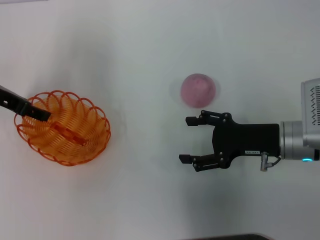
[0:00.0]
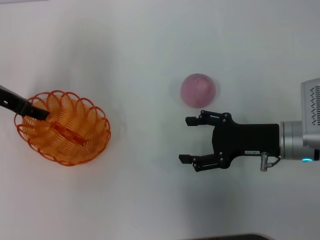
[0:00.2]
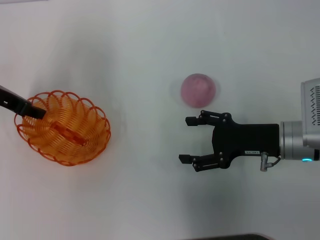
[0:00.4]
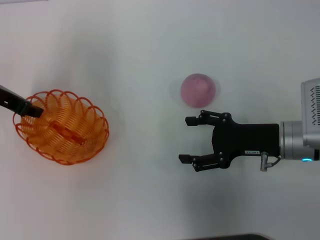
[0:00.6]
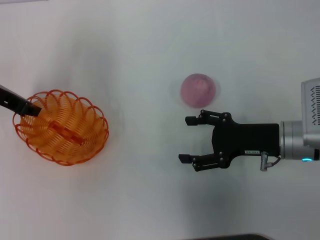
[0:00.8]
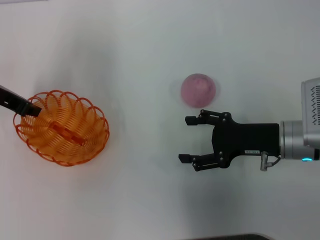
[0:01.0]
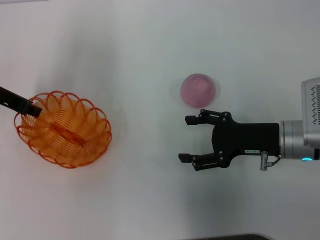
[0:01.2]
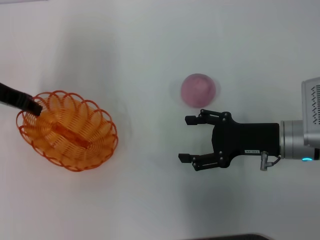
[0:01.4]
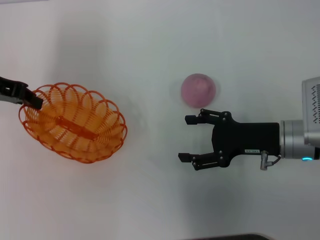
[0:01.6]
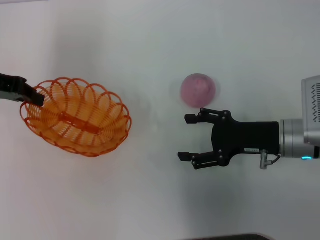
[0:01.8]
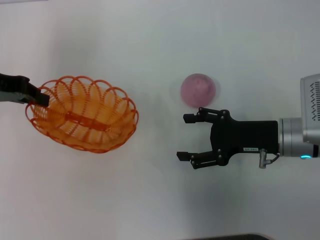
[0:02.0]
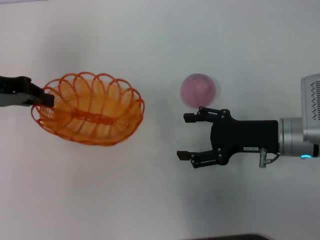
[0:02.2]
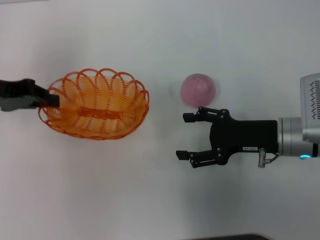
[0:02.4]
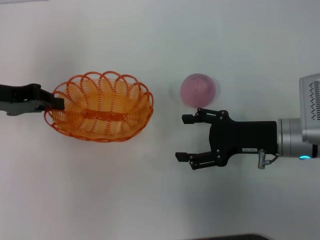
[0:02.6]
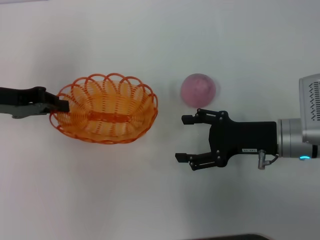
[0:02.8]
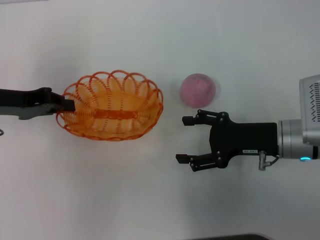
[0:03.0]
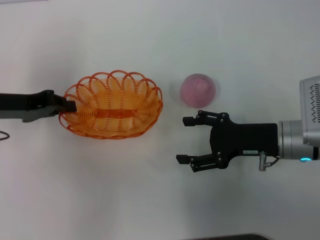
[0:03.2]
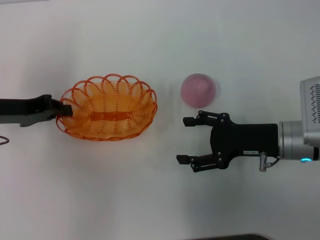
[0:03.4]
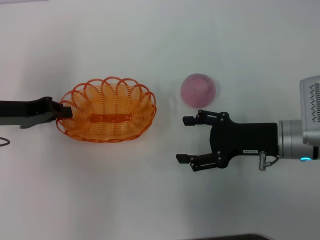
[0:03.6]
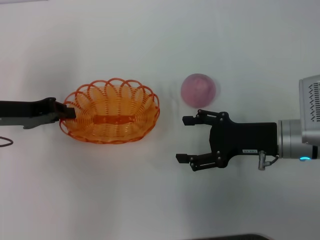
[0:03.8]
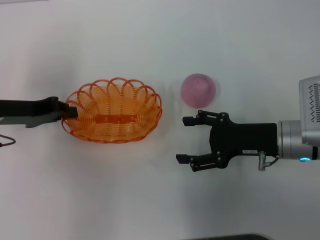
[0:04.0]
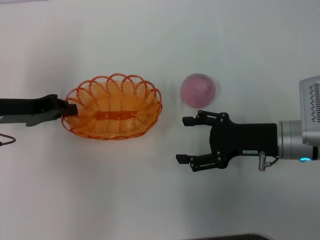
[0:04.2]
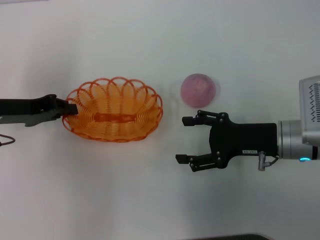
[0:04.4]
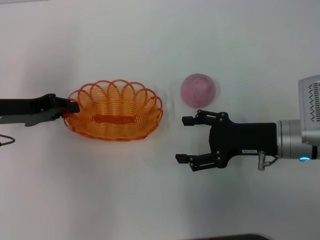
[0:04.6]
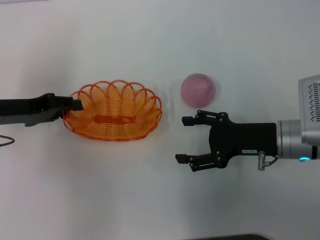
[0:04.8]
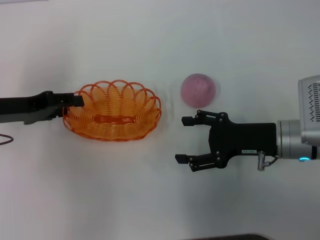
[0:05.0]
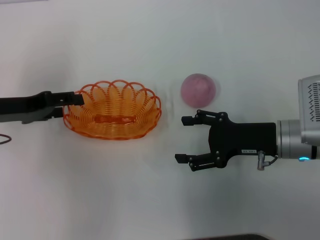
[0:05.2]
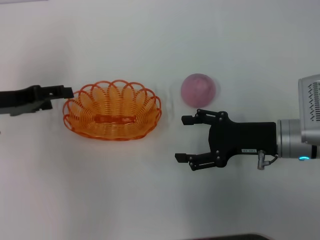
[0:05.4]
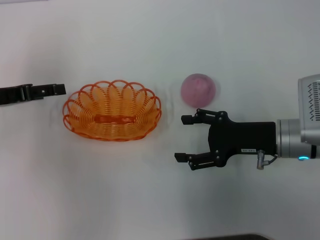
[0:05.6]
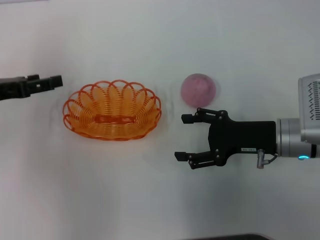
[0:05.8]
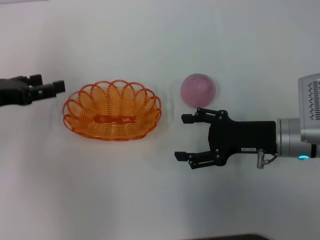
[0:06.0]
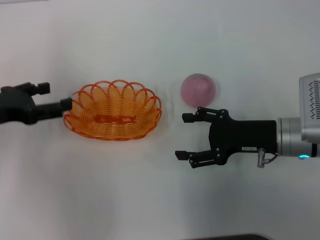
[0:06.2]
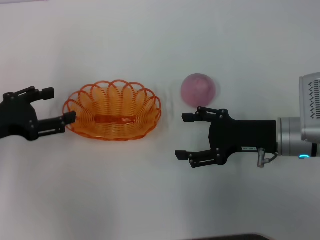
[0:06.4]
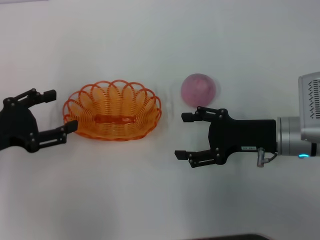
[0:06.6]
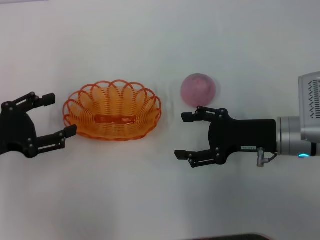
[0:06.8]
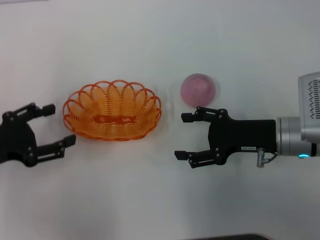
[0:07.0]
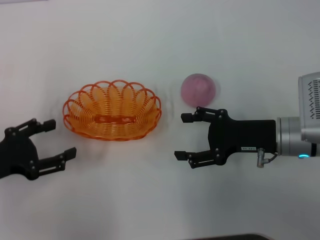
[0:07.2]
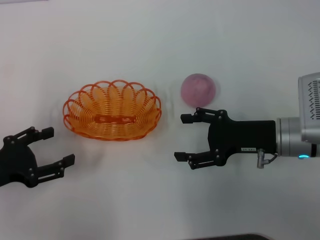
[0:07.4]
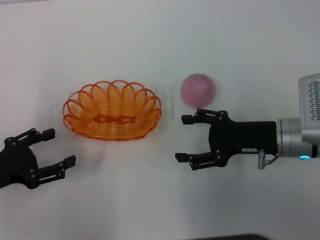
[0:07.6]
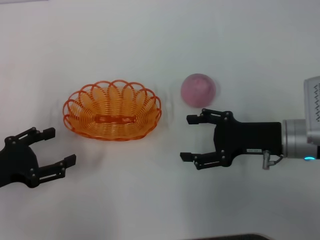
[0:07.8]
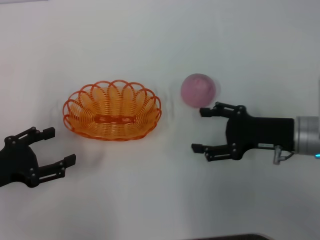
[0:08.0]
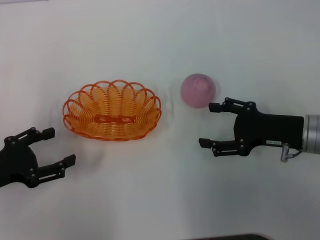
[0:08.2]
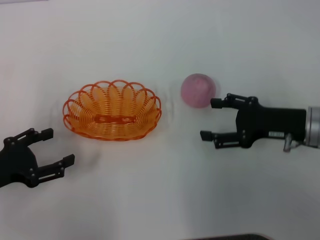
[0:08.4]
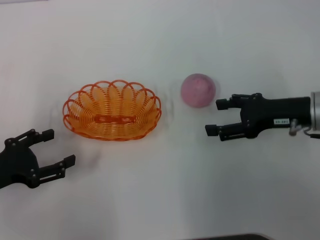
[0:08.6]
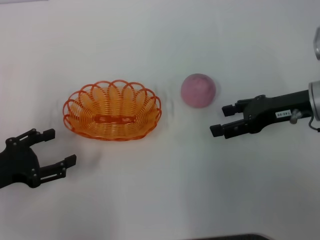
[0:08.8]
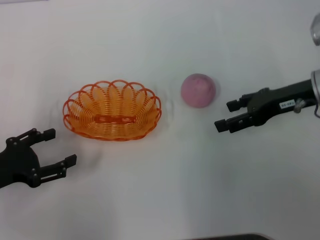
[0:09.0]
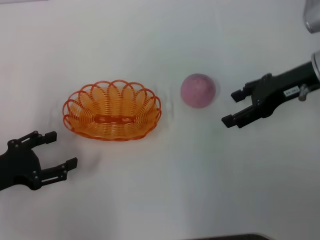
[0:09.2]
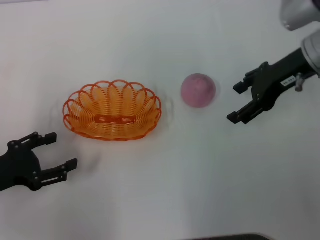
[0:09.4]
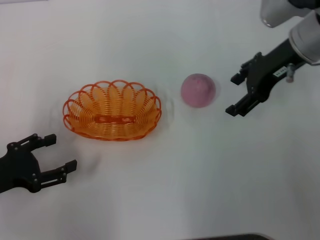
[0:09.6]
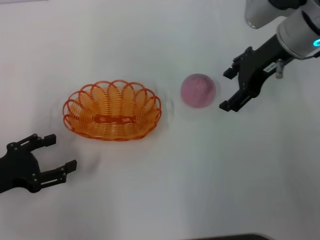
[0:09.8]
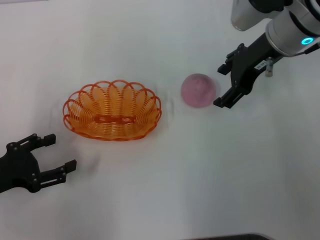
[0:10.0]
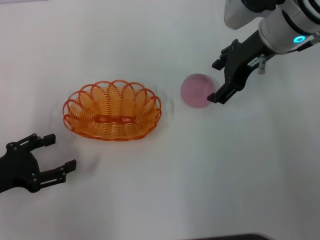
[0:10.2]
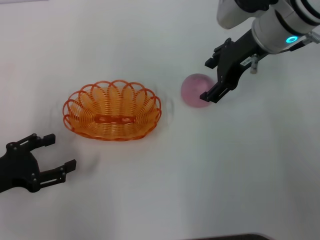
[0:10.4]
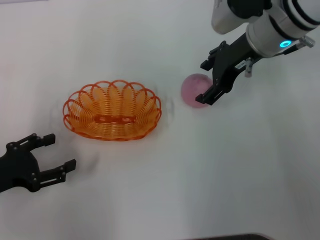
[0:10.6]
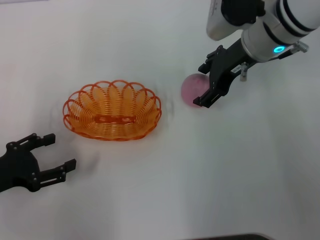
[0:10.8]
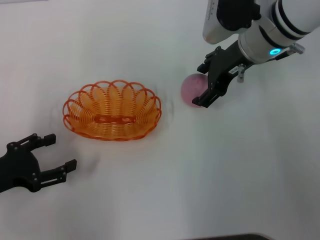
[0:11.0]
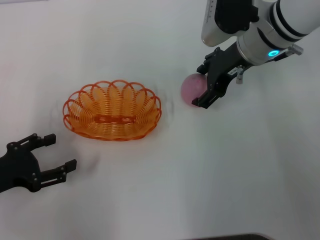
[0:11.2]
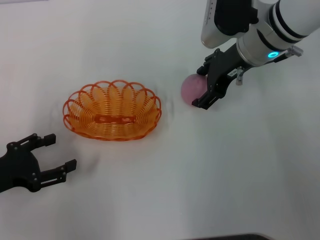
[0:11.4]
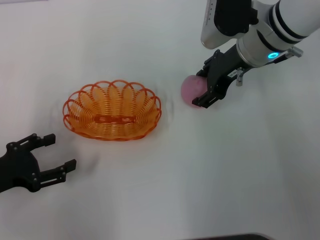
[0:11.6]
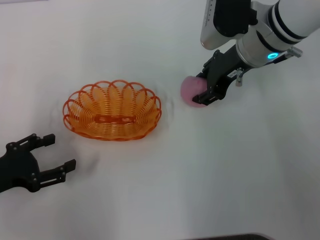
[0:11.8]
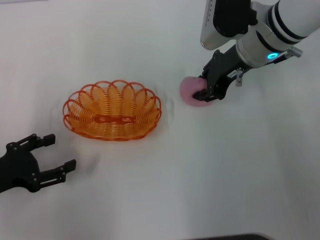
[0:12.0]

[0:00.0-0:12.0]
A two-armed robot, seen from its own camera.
Step, 2.2 to 5.6 s: Place the basket in the center of view with the left gripper.
0.0 to 1.6 s: The left gripper closes its fingers.
1.6 to 3.0 s: The left gripper moves roughly 5 cm.
3.0 to 4.4 s: There are only small adjustments of the grippers.
4.4 to 6.0 s: The left gripper opens up.
6.0 to 7.6 s: The left gripper shifts about 10 cm backward and downward.
7.6 to 9.0 s: The right gripper shifts roughly 10 cm upward and forward.
9.0 to 10.4 s: The right gripper goes about 15 cm to the left, forward and upward.
10.4 to 12.0 s: The right gripper closes its fingers.

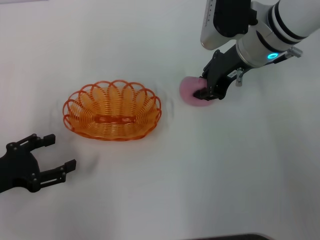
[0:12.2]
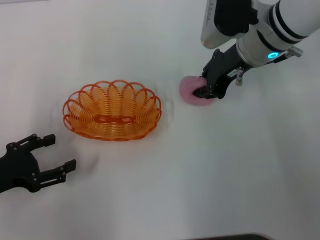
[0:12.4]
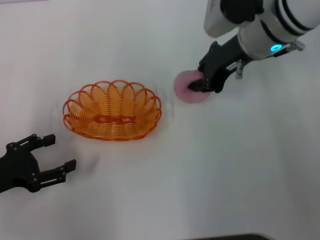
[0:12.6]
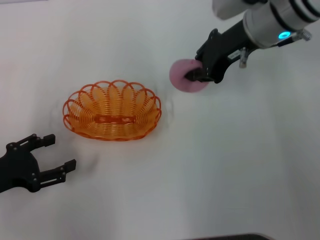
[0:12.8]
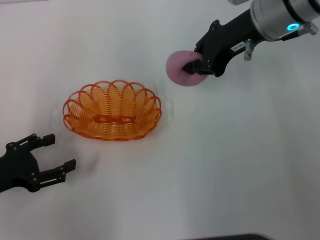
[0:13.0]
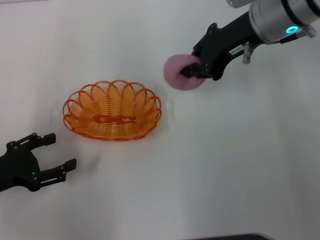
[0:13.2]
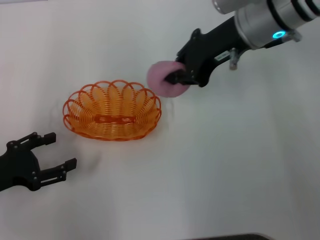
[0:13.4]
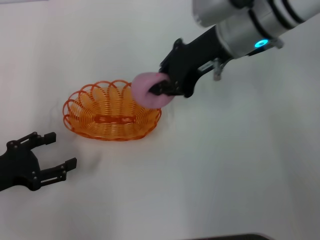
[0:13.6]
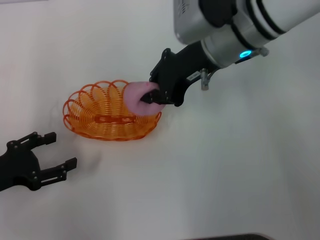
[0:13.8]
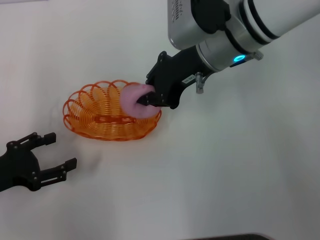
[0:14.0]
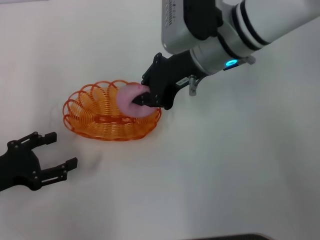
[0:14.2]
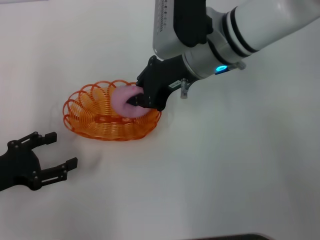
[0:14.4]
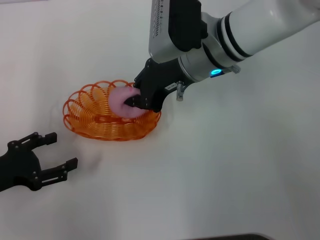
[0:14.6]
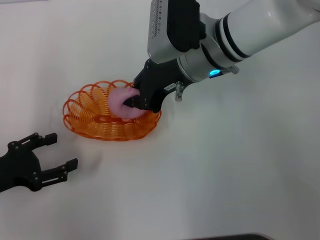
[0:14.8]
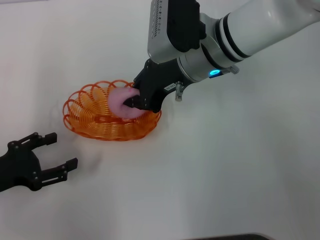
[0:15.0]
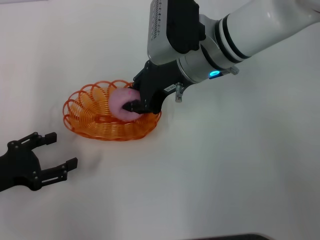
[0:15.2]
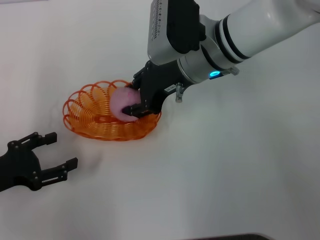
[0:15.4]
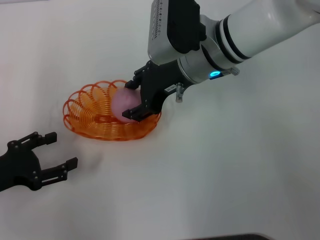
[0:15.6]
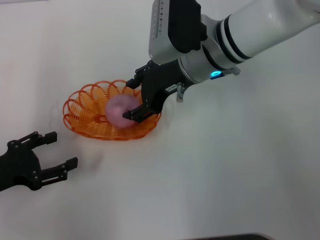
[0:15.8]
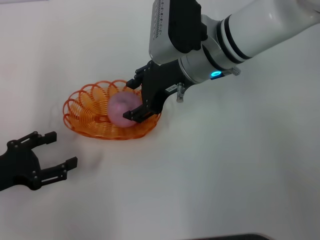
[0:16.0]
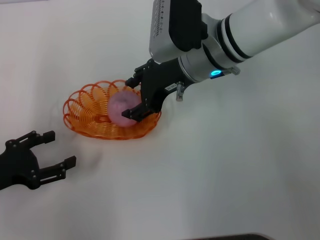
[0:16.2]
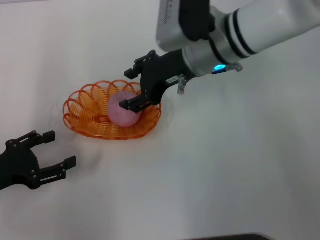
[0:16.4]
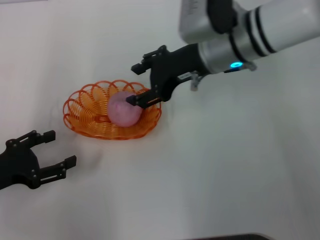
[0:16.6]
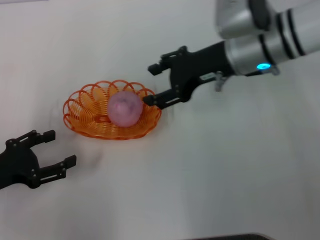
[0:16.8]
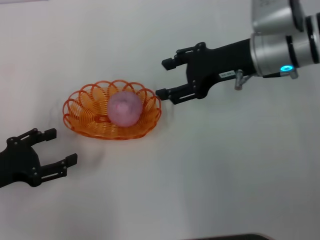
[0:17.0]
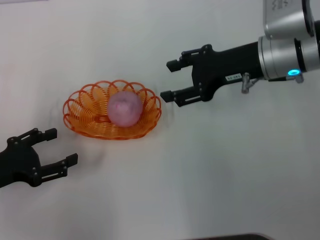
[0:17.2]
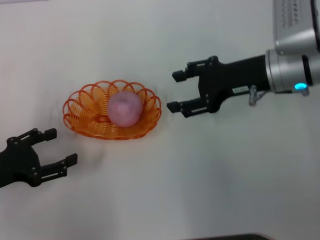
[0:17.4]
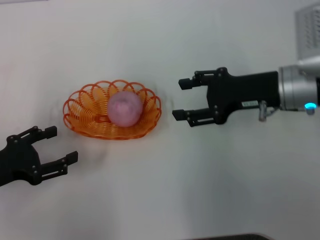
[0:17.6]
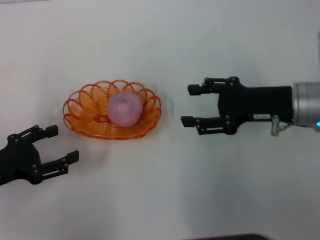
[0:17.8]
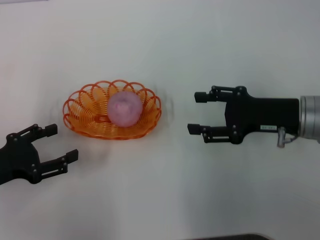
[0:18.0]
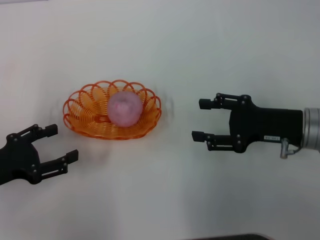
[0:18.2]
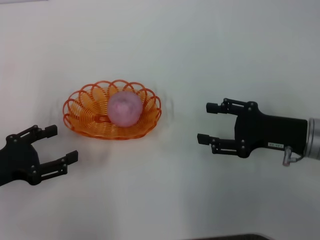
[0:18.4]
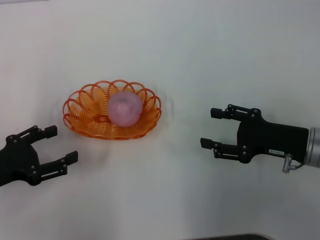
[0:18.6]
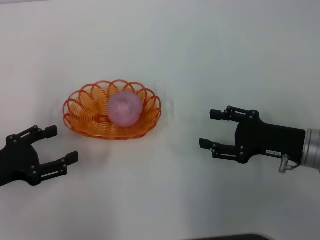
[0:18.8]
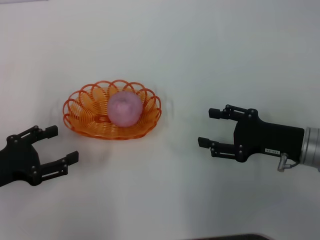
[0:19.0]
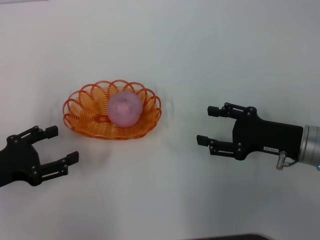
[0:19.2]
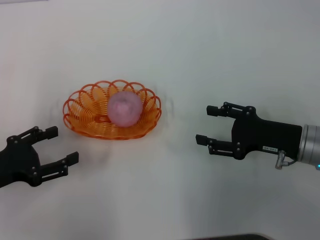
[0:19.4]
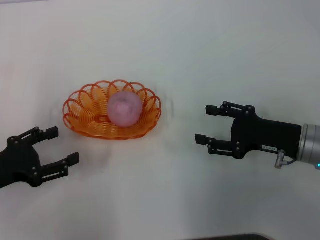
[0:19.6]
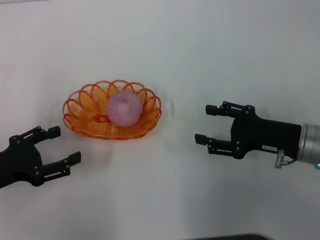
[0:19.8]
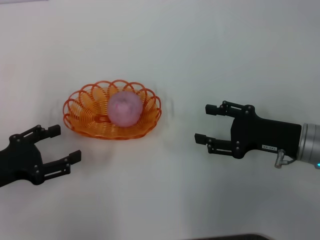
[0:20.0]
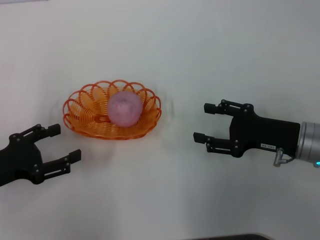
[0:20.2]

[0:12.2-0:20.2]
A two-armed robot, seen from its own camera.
Step, 13.2 to 17.6 s: Place the peach into the basket with the right gripper.
12.2 to 13.8 s: The right gripper goes some 5 cm to the left.
13.8 to 15.4 s: The grippers move only a little.
15.4 to 17.0 s: The right gripper shifts about 10 cm to the right, and opens up.
17.0 to 18.6 s: The right gripper heads backward, downward and to the right, covering about 20 cm.
18.6 to 20.2 s: Neither gripper changes place.

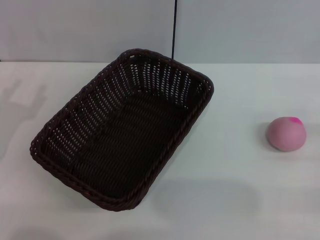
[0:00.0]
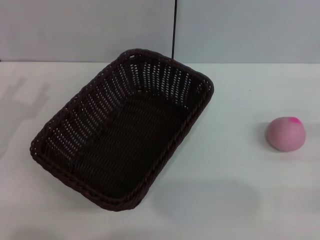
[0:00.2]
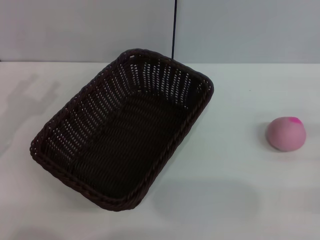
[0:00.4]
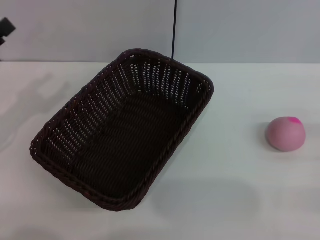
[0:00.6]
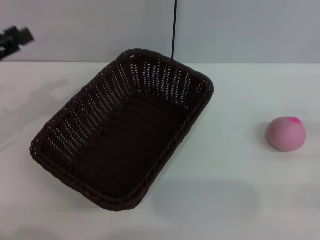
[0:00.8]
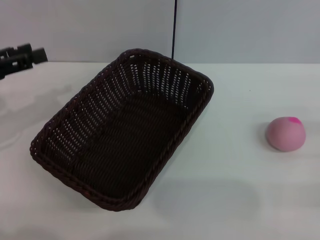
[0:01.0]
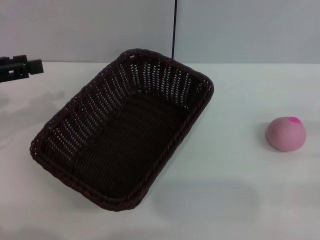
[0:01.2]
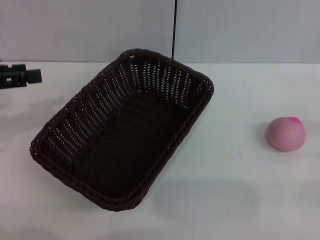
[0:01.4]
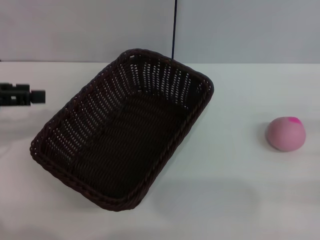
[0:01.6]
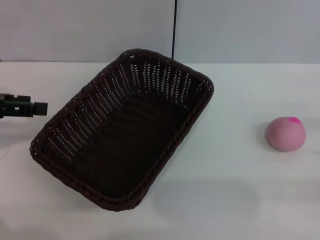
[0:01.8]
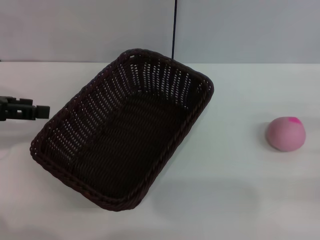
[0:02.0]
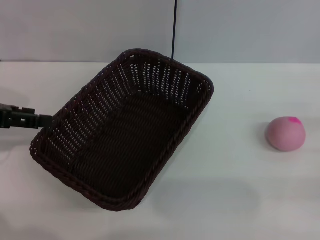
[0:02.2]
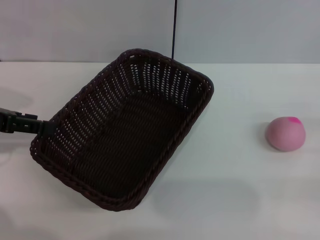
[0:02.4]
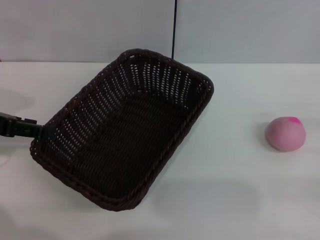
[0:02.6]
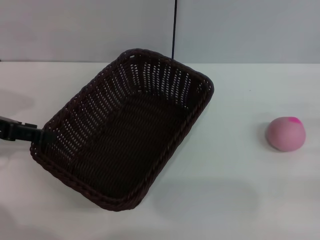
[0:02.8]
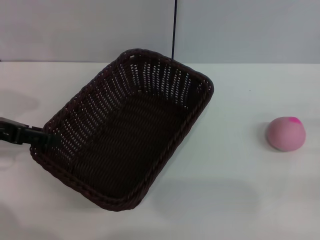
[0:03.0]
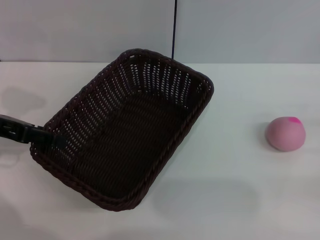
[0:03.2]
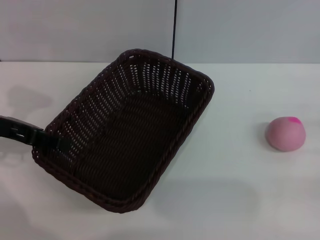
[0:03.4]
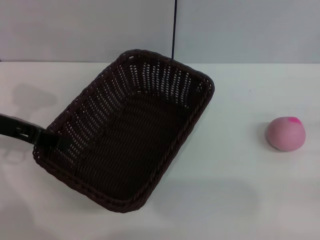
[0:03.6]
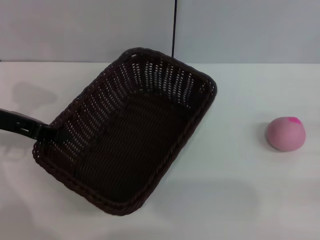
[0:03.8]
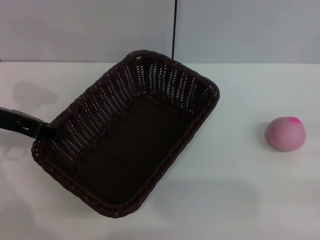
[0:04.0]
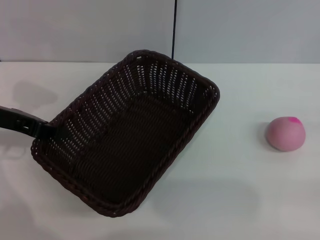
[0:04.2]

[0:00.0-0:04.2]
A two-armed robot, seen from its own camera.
0.0 to 1.4 s: The left gripper goes some 10 cm upward and forward.
2.8 to 4.2 s: The left gripper closes its fingers.
